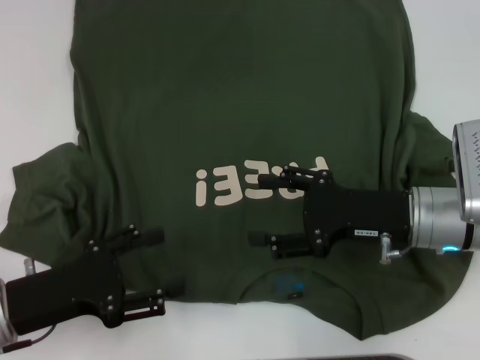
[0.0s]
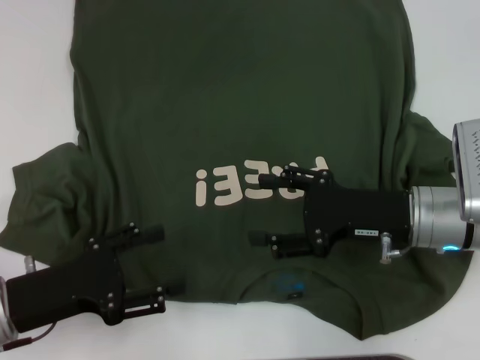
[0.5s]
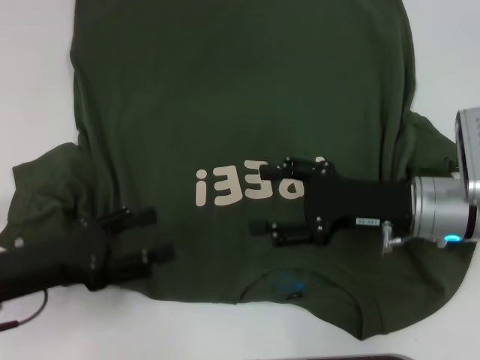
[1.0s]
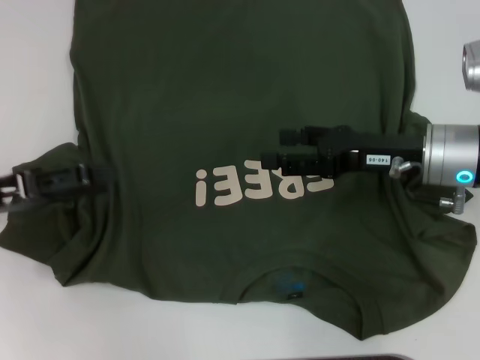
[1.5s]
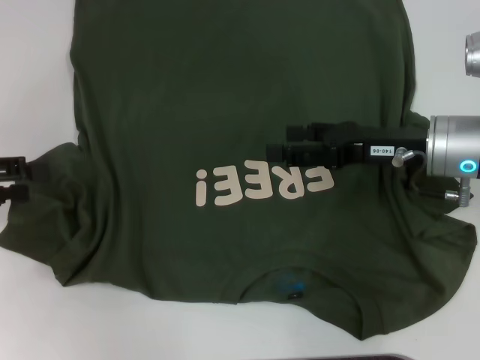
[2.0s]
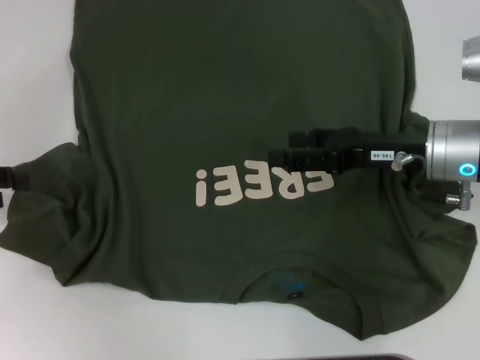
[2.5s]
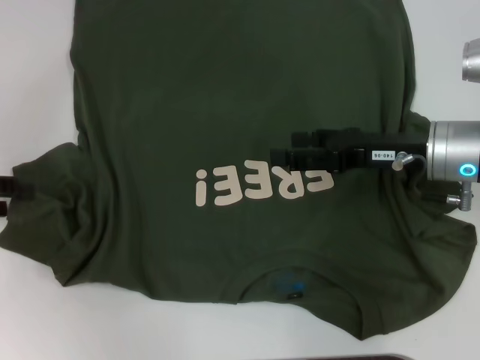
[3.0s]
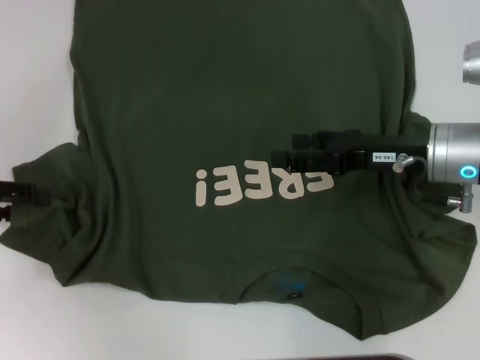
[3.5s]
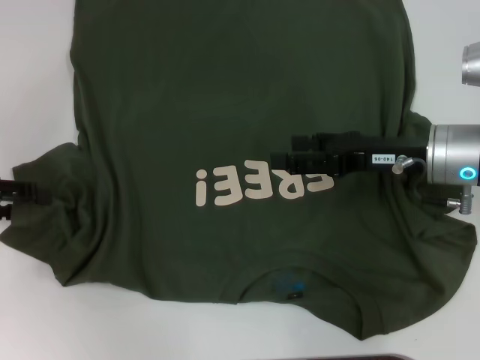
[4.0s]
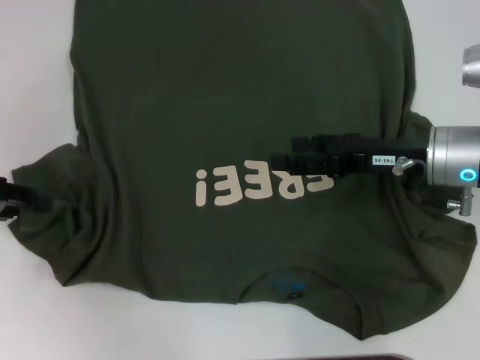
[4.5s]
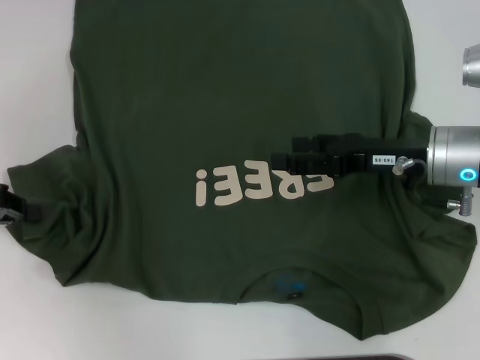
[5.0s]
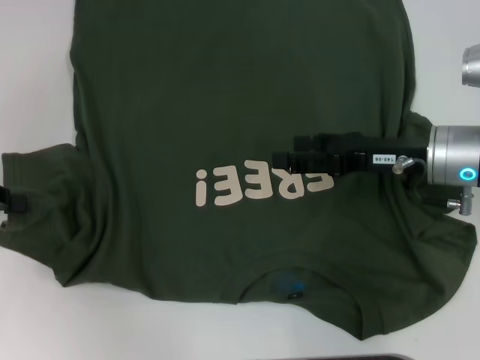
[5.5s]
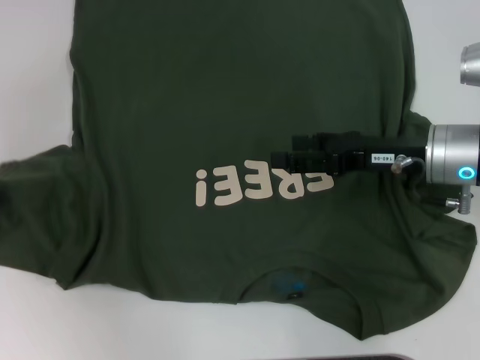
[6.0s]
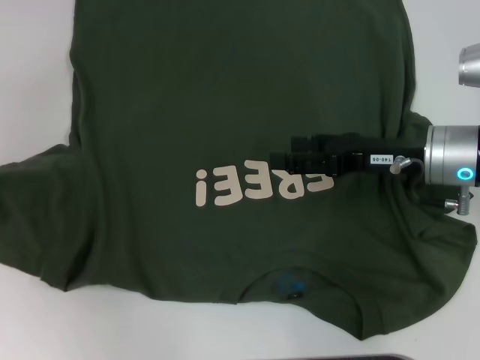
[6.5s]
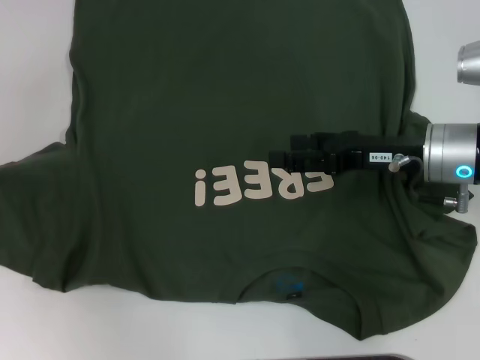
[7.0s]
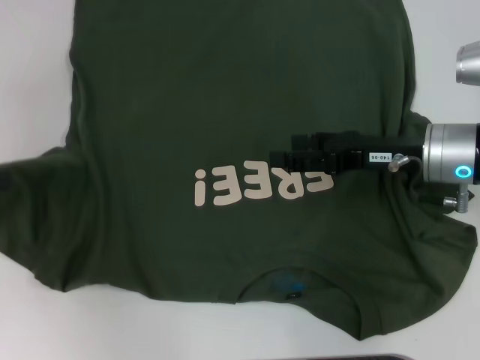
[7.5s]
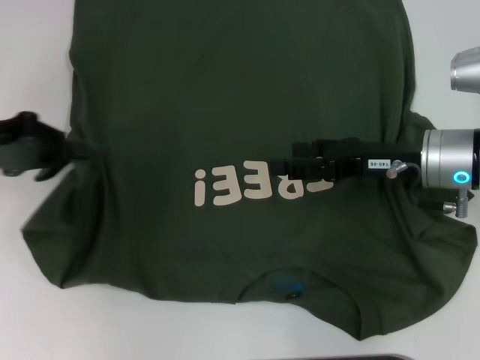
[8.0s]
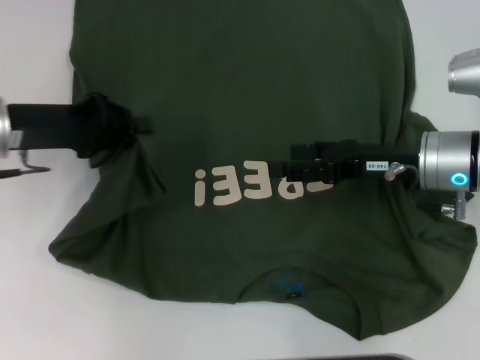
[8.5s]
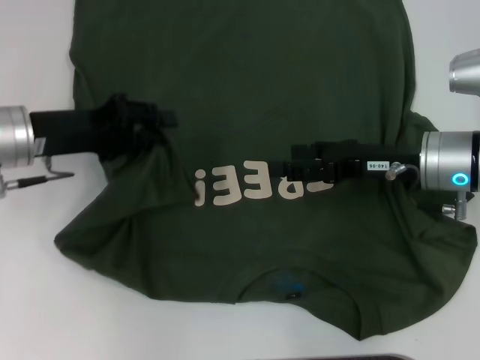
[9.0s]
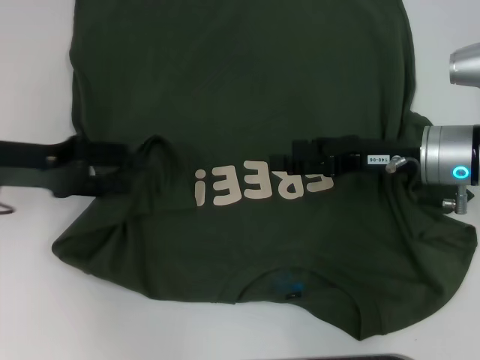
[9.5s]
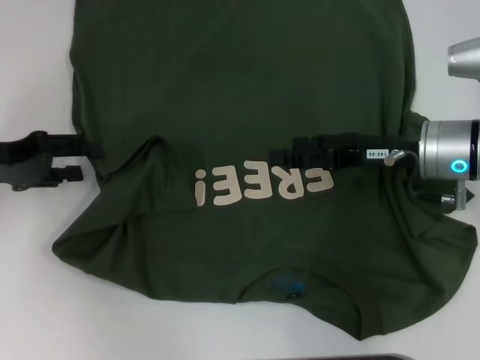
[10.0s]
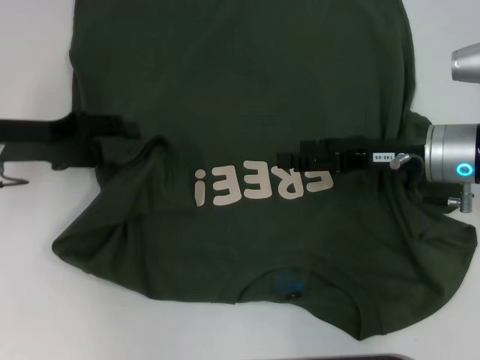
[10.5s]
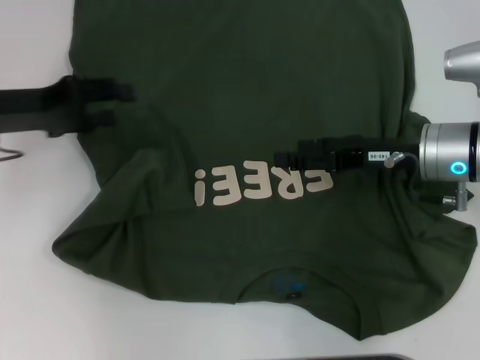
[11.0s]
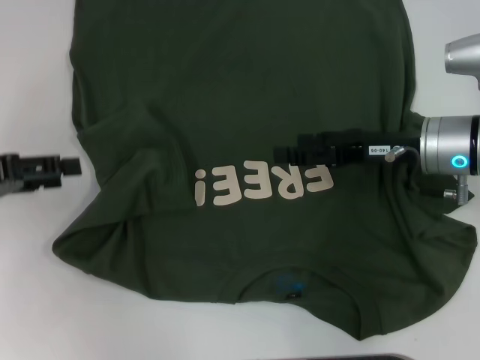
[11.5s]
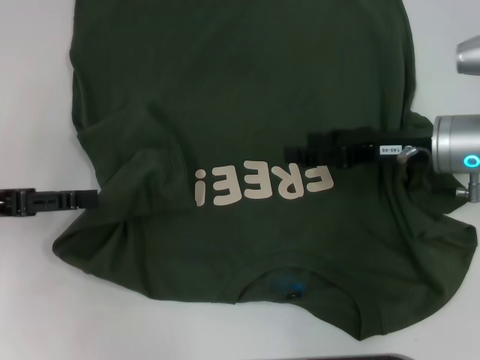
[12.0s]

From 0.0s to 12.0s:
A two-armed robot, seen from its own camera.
Step, from 0.0s to 10.0s: Fold the bottom left sleeve with your left hand.
From 0.0s to 2.0s: The right gripper moves forward, approximately 5 cm; the left gripper travels upward, to the left and forward by about 15 cm.
From 2.0s to 4.0s: The grippers make only small movements.
From 4.0s to 6.0s: The left gripper closes up.
From 6.0s to 8.0s: The left gripper goes approximately 5 cm to the right.
From 8.0s to 10.0s: The left gripper opens.

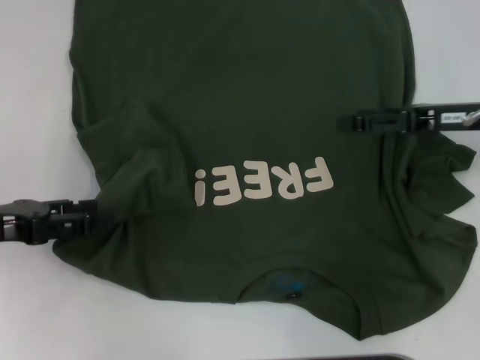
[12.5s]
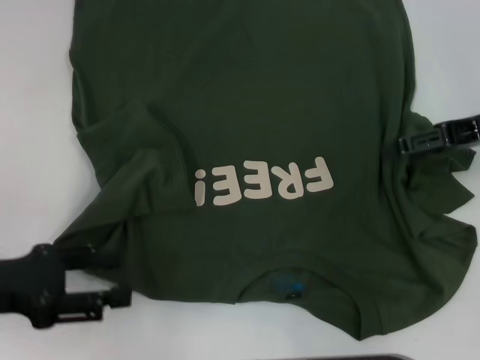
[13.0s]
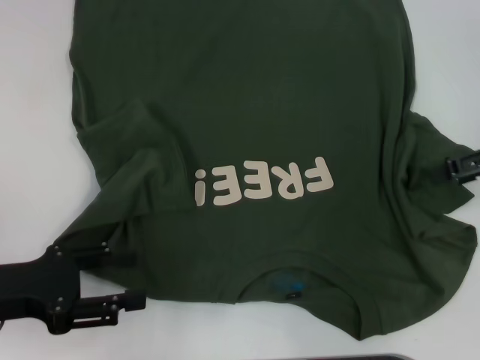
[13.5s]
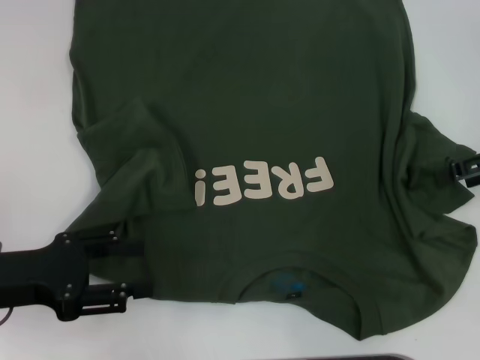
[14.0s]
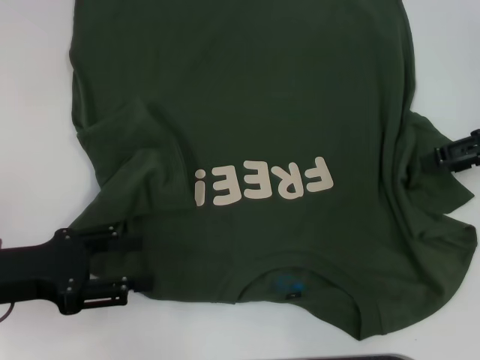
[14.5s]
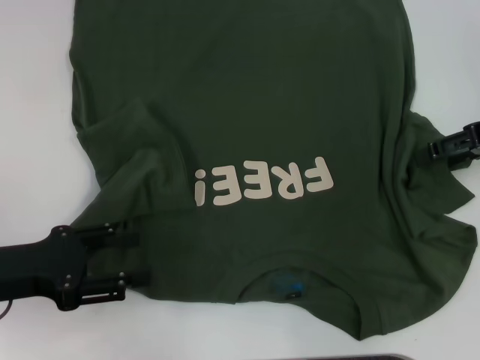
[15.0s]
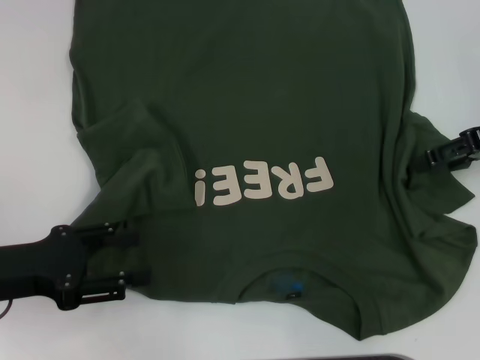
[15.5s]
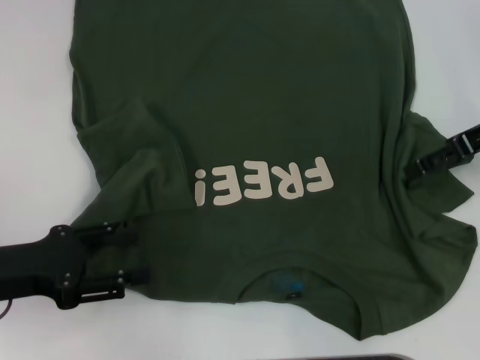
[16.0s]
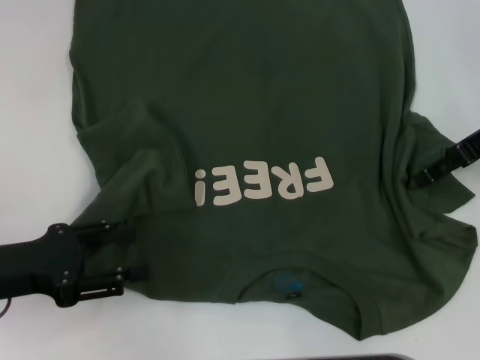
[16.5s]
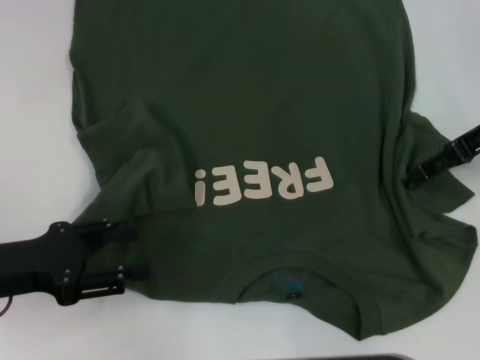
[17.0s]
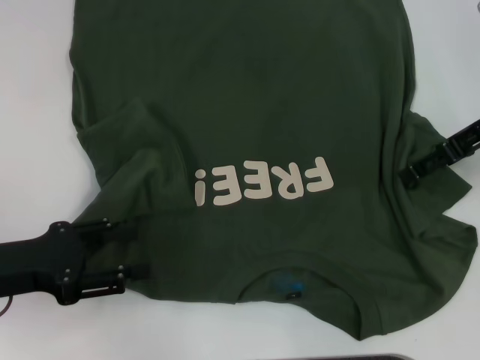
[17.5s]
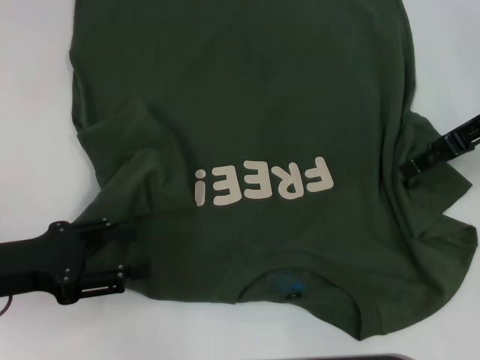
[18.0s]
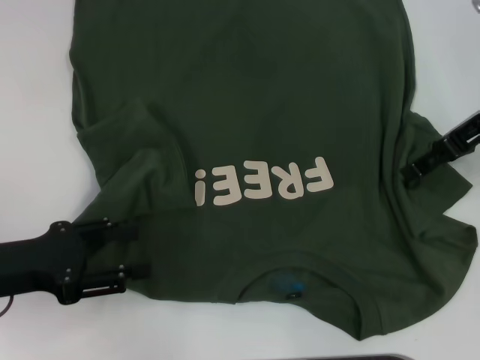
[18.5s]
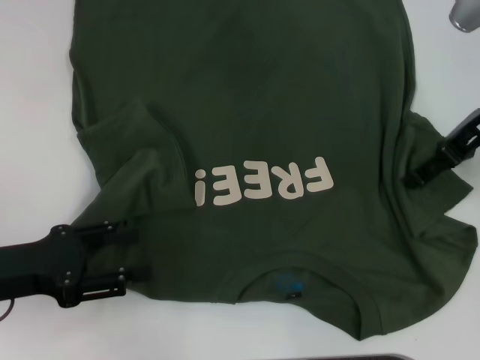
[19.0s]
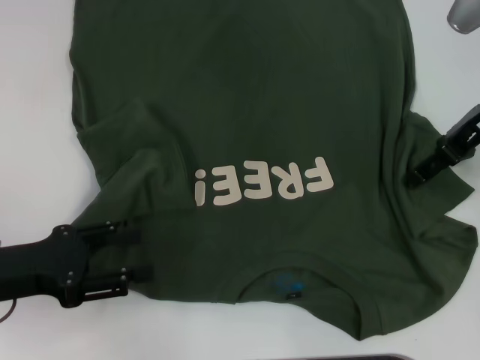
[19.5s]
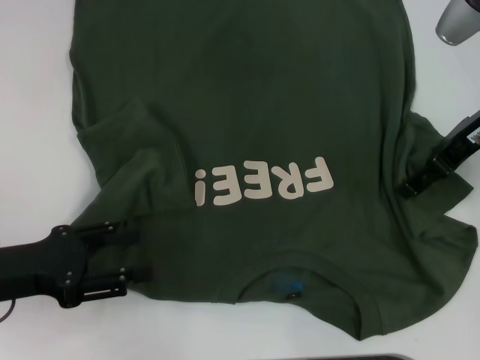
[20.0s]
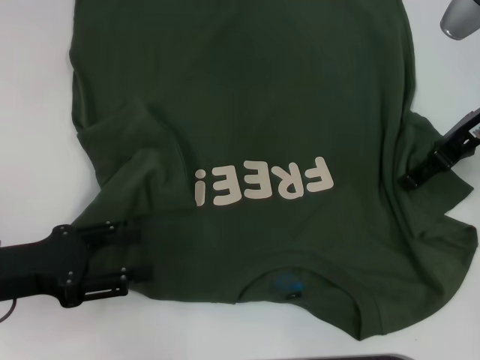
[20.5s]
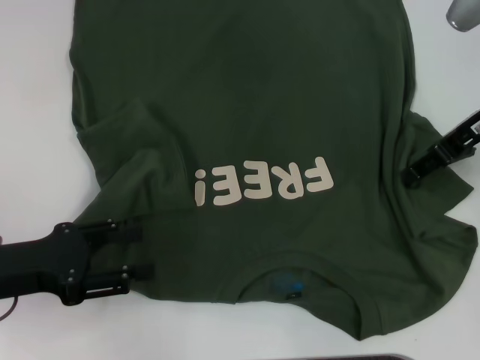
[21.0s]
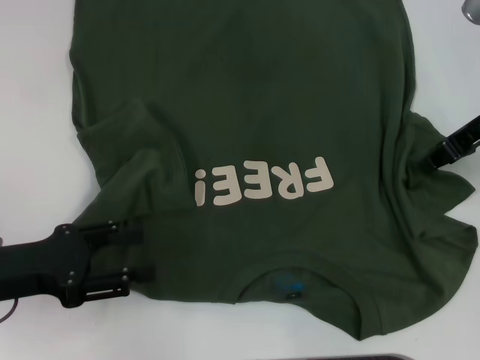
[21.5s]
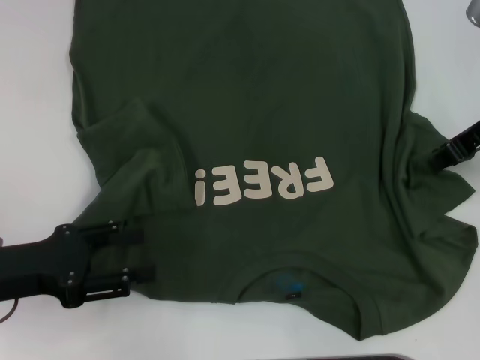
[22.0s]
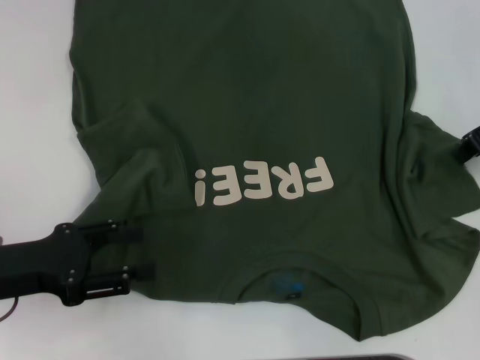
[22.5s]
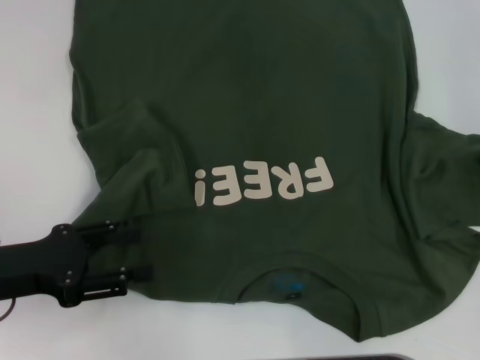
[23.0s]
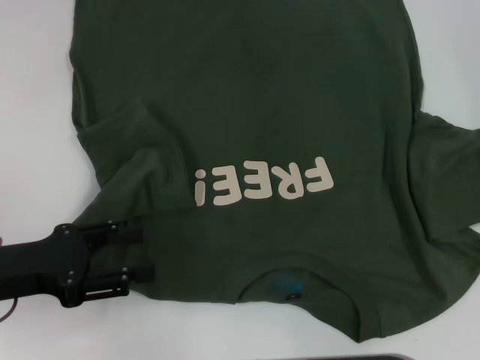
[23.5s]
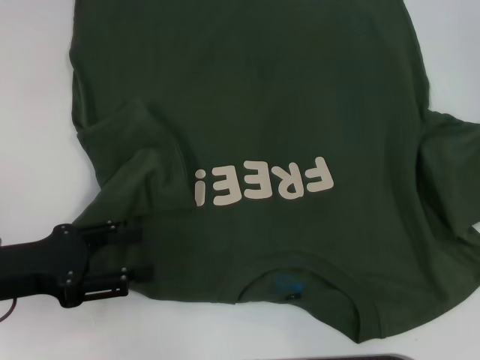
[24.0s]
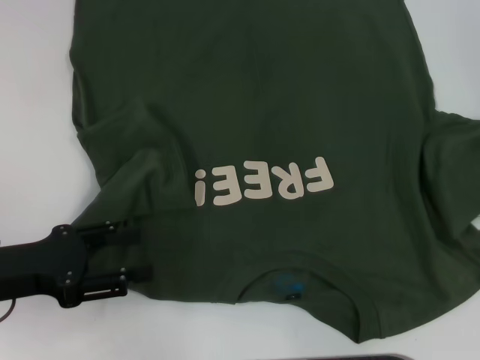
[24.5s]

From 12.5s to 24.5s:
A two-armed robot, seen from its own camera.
From 12.5s to 14.5s: The right gripper ends up roughly 5 cm from where it was. Meanwhile the left gripper shifts by some 5 cm.
From 16.5s to 20.5s: The grippers stay close to where they were, moving slightly.
From 20.5s to 22.5s: The right gripper closes up.
From 22.5s to 24.5s: The right gripper shifts by about 5 cm.

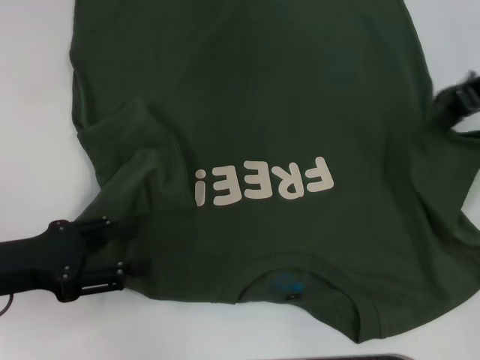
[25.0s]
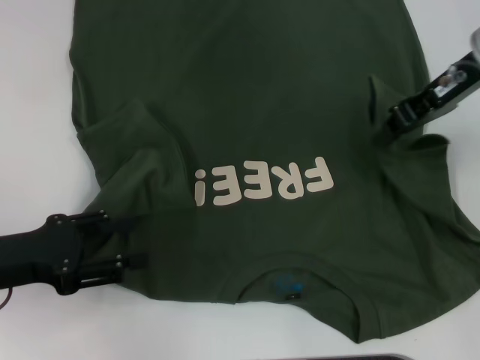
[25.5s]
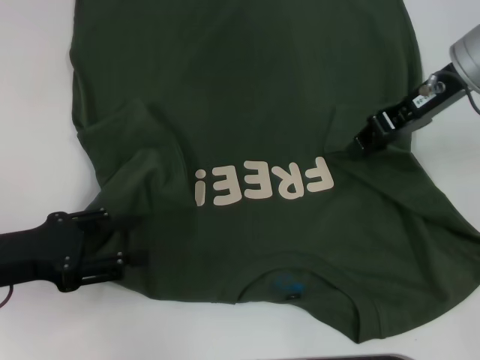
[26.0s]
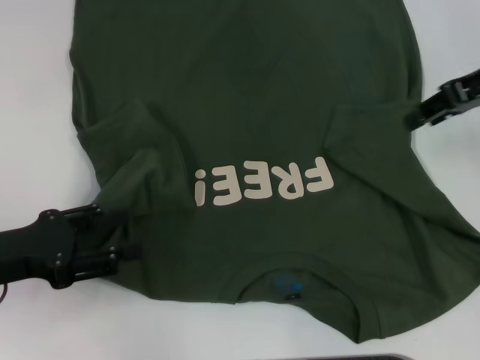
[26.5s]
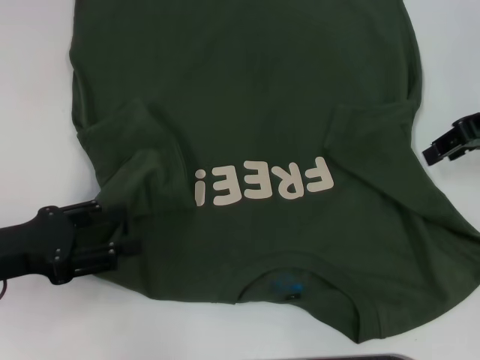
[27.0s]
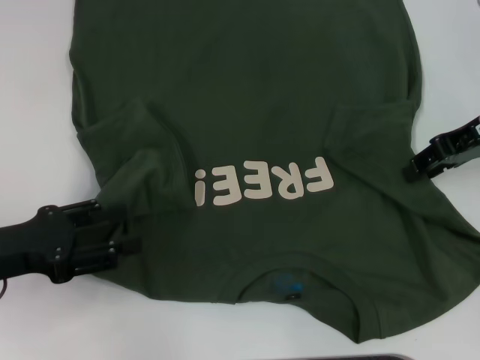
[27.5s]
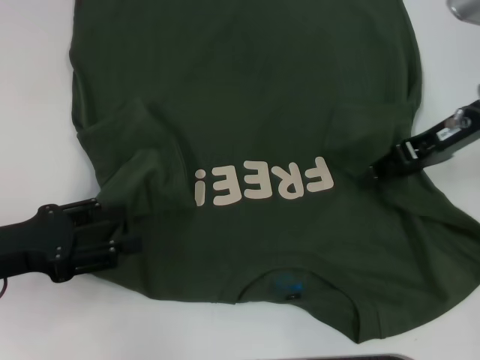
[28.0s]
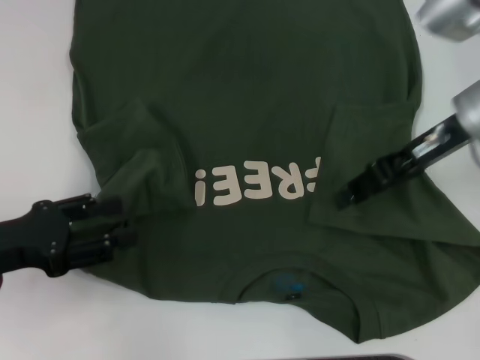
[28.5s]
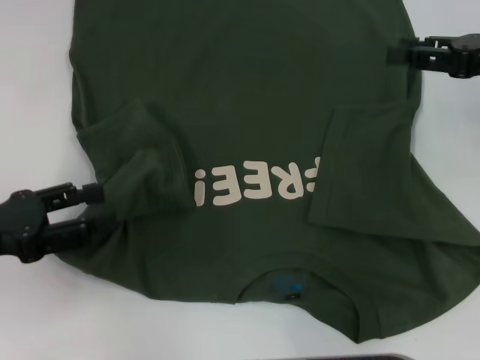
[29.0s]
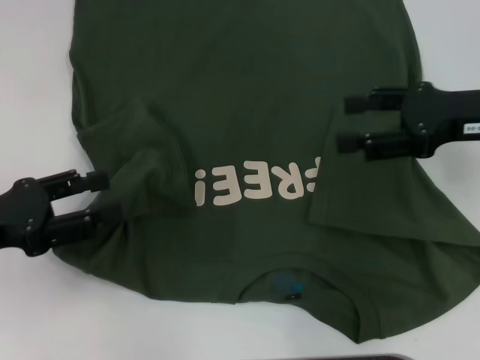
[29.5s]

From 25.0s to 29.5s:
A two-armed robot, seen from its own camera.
Step, from 25.0s to 28.0s: Fold the bottom right sleeve with your right hand.
From 25.0s to 27.0s: The right gripper travels downward by some 5 cm, and opens.
From 27.0s to 29.5s: The right gripper goes left and right, approximately 10 cm each way, reversing 2 times.
